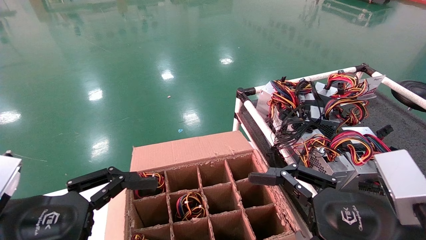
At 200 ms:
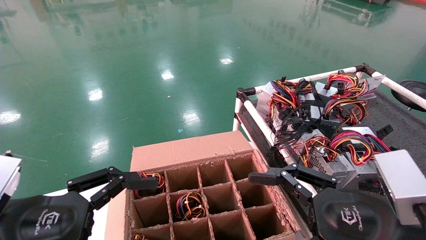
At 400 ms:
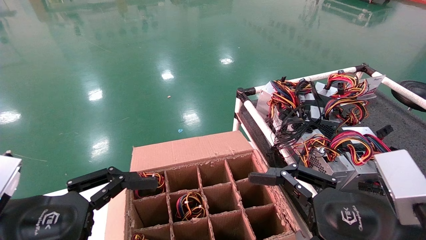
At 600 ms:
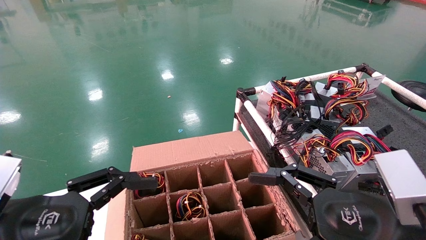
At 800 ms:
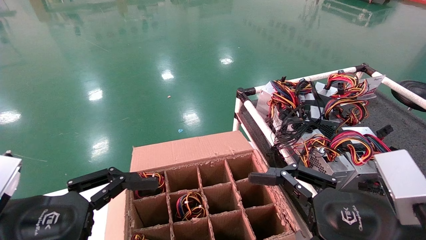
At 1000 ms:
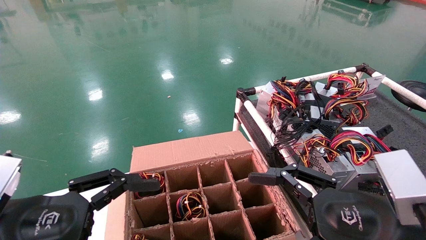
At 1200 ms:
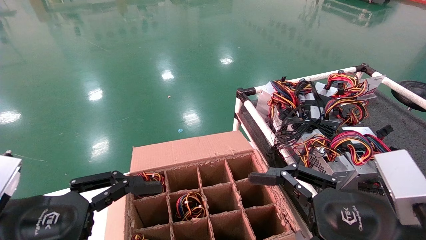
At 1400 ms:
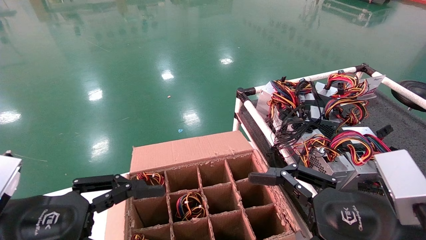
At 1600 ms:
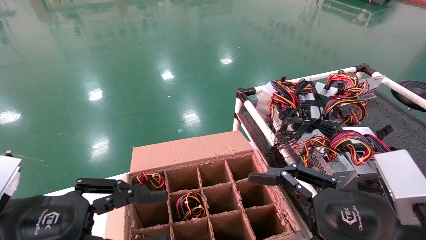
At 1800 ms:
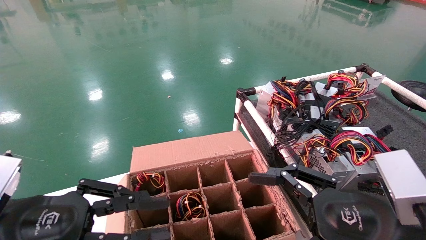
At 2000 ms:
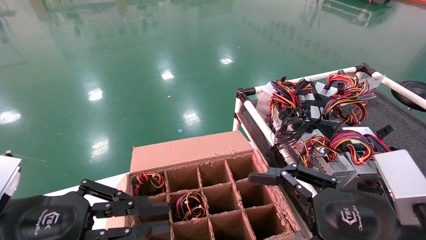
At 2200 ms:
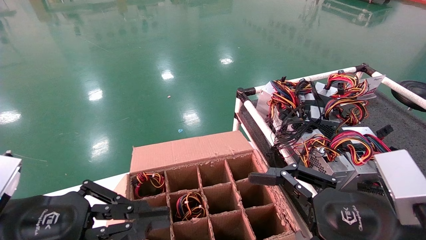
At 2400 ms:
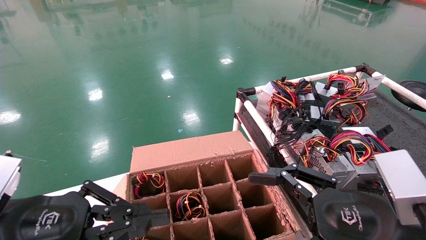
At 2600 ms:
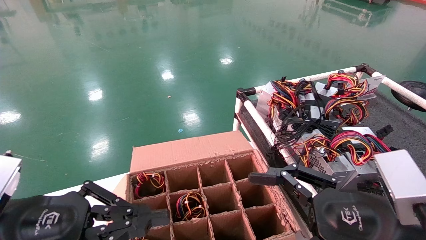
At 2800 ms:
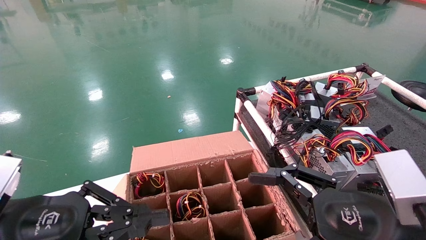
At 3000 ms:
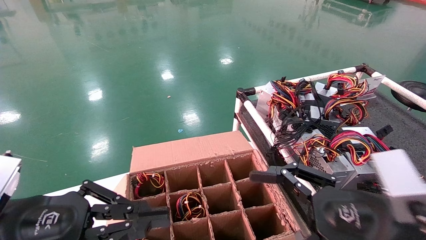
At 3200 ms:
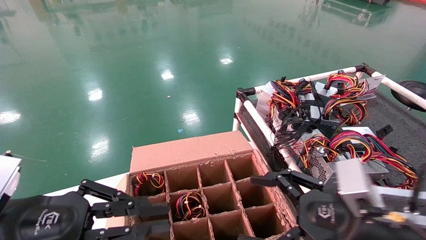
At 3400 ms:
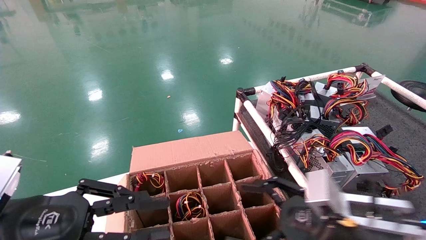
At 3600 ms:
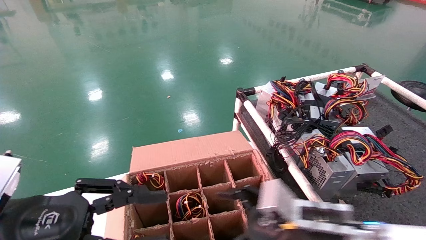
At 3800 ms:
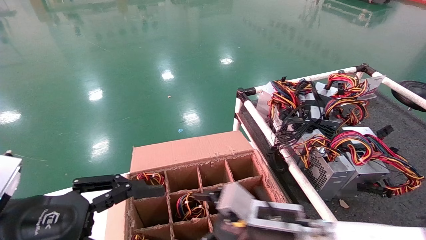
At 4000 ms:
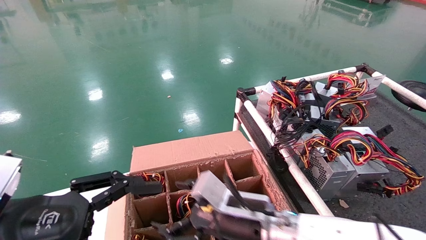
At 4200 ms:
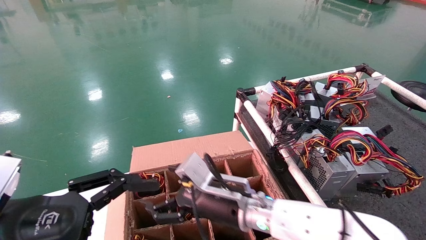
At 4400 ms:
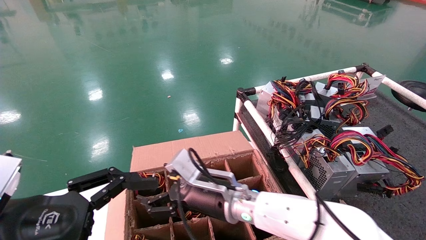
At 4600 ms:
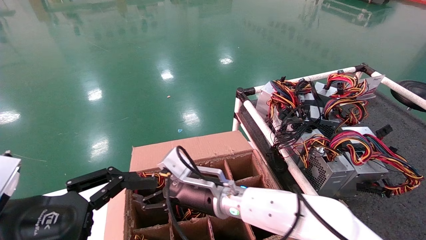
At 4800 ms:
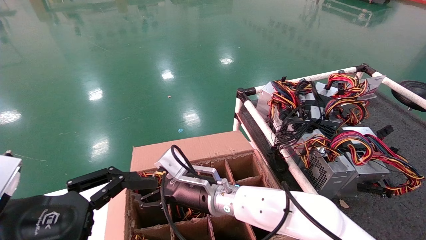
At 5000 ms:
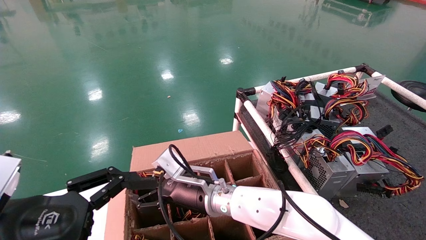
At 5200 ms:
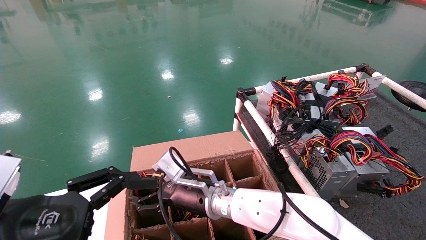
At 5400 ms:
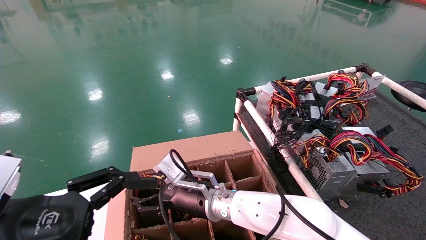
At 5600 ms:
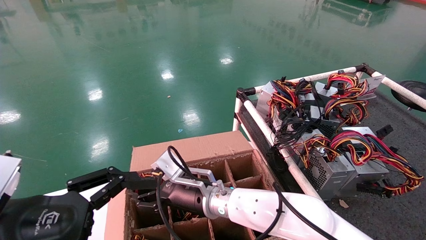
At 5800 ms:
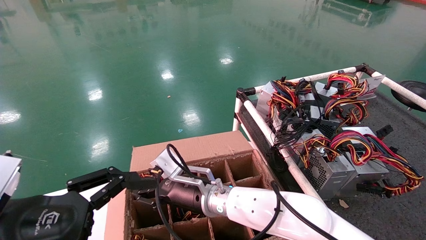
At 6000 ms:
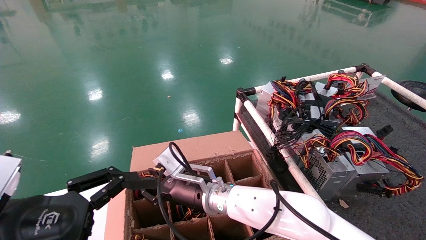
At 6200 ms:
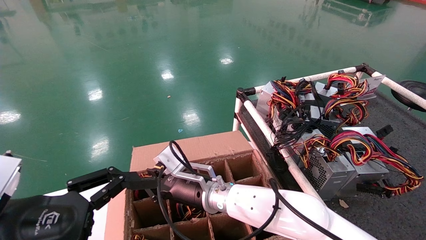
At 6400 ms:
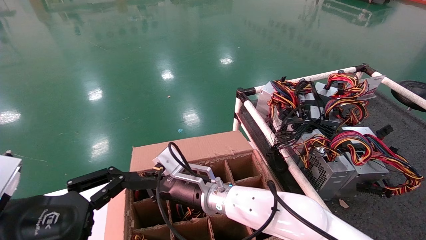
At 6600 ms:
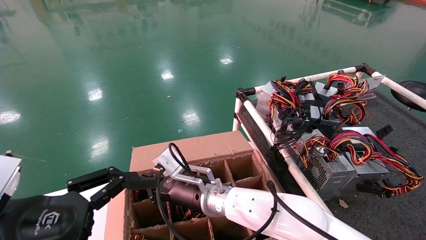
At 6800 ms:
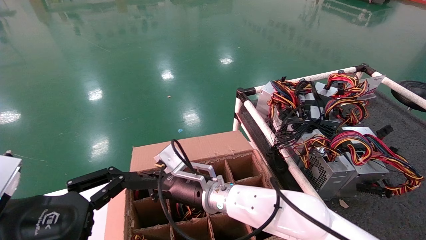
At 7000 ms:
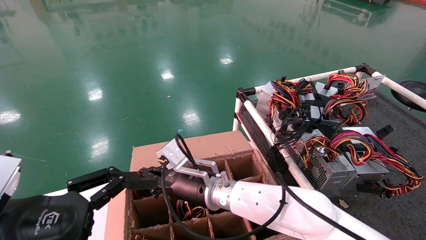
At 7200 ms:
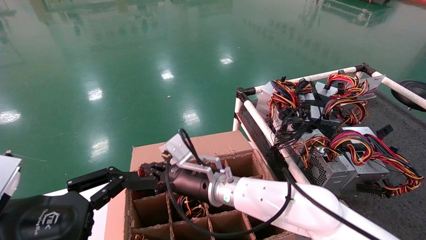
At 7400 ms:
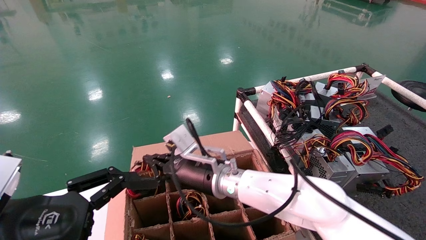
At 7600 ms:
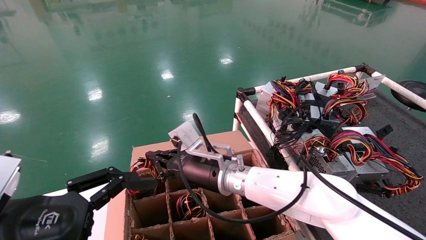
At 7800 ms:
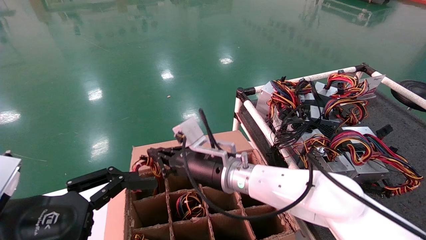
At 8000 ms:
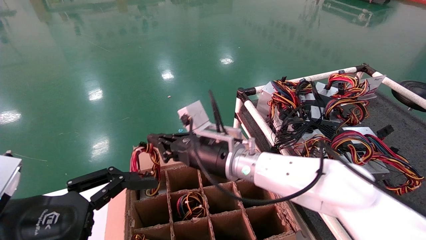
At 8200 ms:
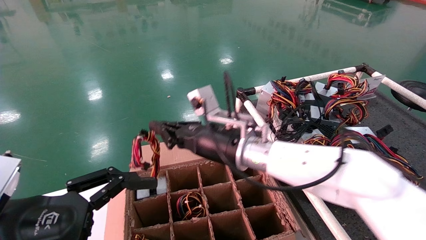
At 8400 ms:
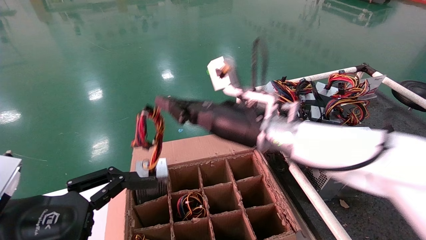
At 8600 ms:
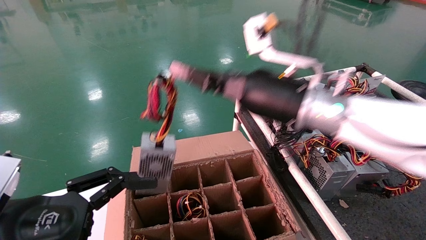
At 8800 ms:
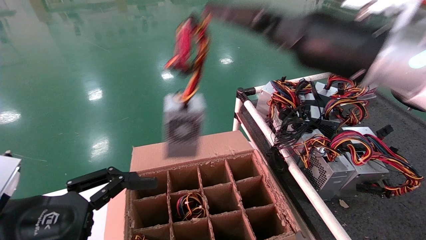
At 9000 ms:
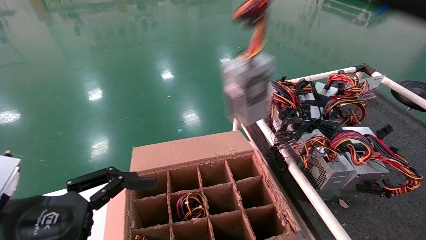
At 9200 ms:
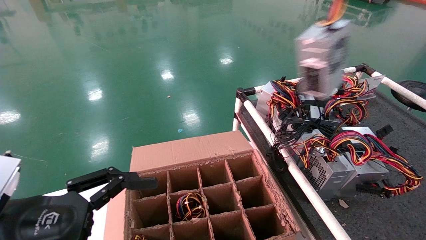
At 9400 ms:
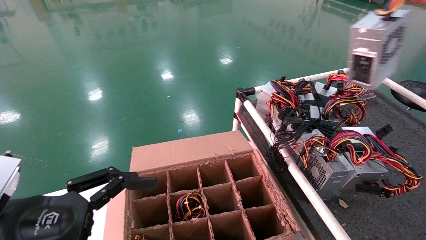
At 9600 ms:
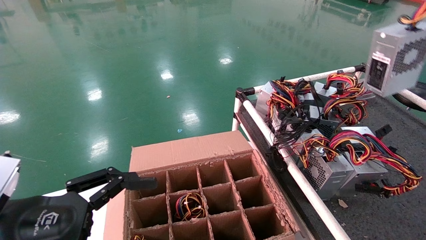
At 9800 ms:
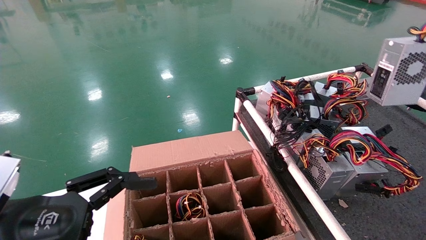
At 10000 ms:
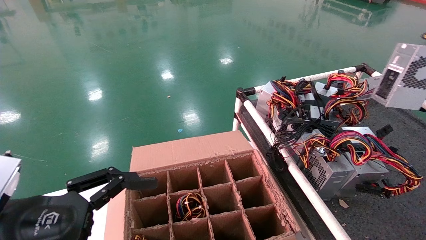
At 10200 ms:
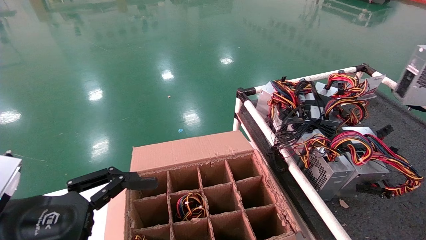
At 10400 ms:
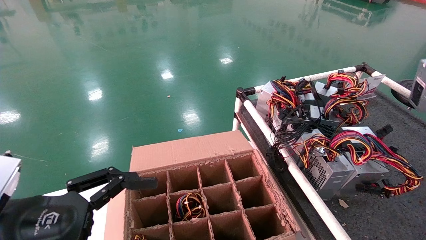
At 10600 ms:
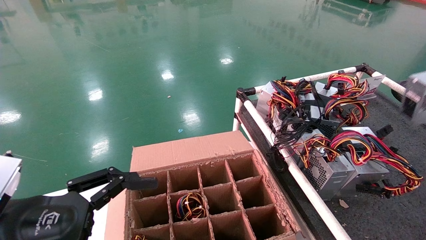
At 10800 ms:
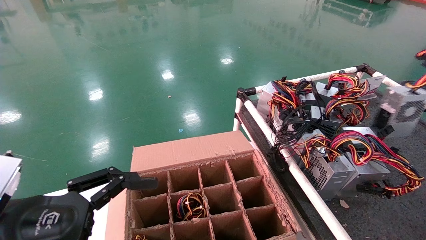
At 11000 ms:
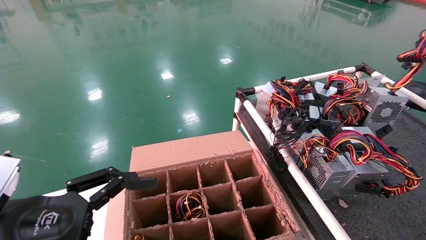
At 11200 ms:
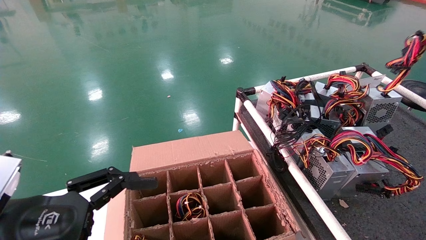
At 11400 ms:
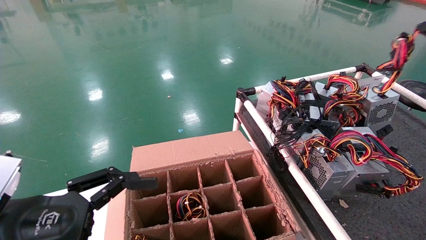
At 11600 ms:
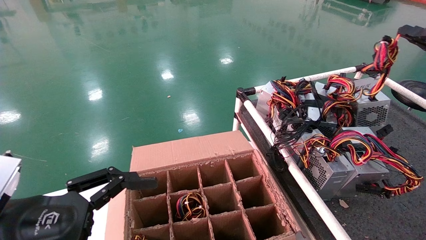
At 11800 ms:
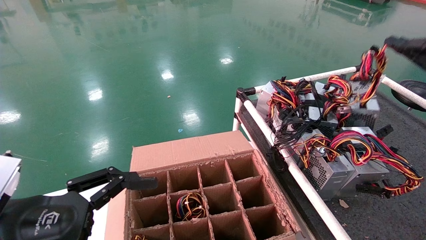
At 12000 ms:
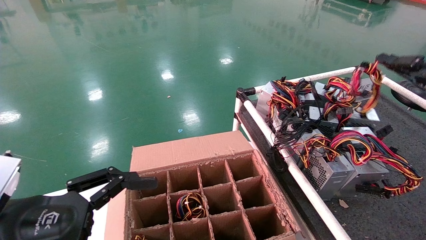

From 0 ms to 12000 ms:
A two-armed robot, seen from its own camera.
Step, from 3400 ms to 6800 ms: Grab and lift the power supply from the large box.
From 0 ms to 1600 ms: The left gripper closes its fingers.
From 1600 ms to 3000 ms: The left gripper closes.
From 3000 ms to 4400 ms: The right gripper is displaced to the left and forward by roughly 25 cm. Meanwhile the left gripper opens.
From 4400 ms to 6000 ms: The right gripper shifts by approximately 5 cm, and closes.
From 6000 ms to 7600 ms: The right gripper heads upward, covering approximately 5 cm, and closes its fingers.
From 7600 ms to 9000 ms: The right gripper moves upward, to the right and backward, approximately 40 cm.
From 9000 ms to 10400 ms: The right gripper travels to the right by some 30 cm.
From 10400 ms to 12000 ms: The right gripper is displaced downward, to the left and forward by roughly 15 cm.

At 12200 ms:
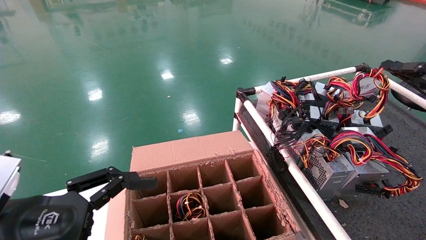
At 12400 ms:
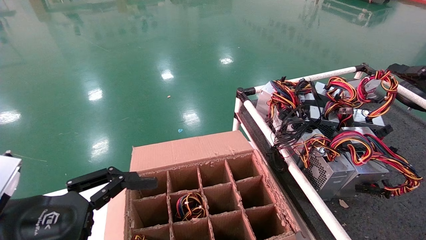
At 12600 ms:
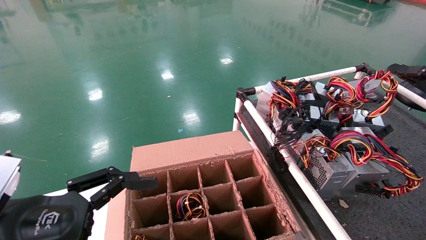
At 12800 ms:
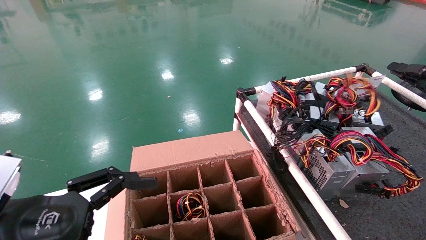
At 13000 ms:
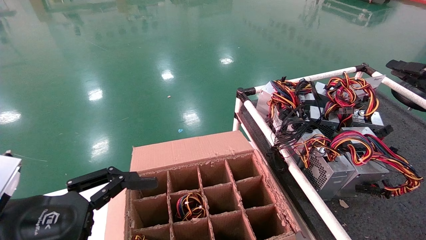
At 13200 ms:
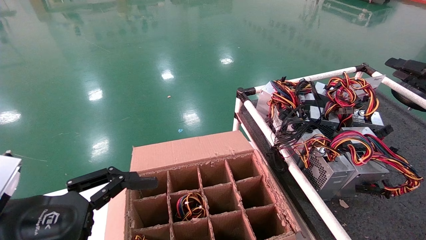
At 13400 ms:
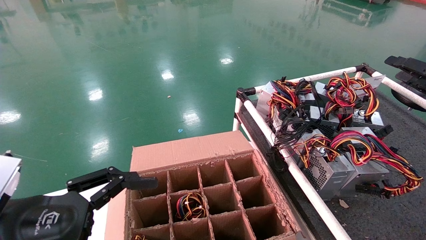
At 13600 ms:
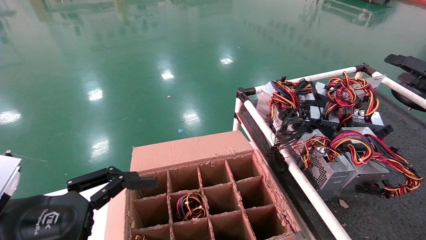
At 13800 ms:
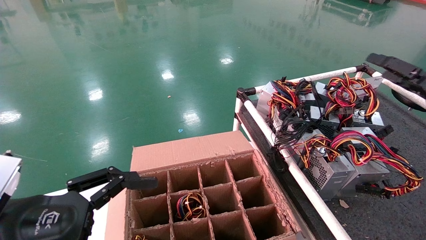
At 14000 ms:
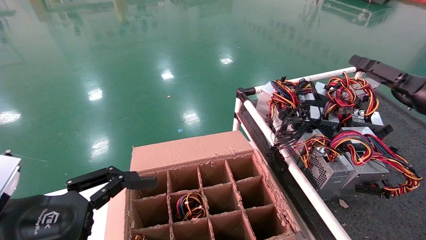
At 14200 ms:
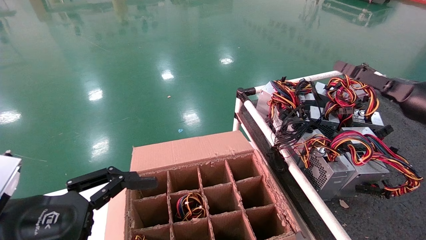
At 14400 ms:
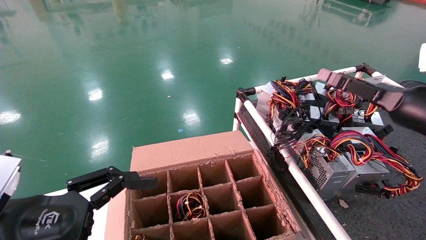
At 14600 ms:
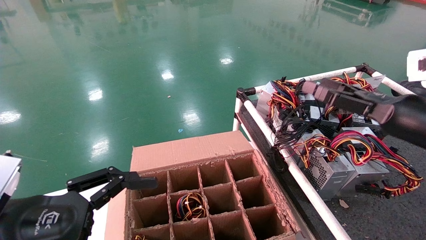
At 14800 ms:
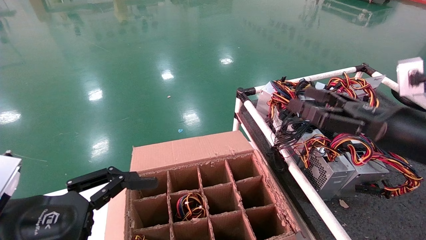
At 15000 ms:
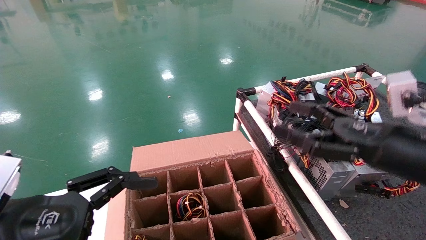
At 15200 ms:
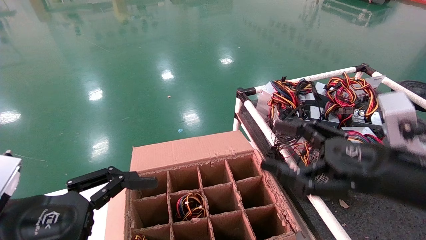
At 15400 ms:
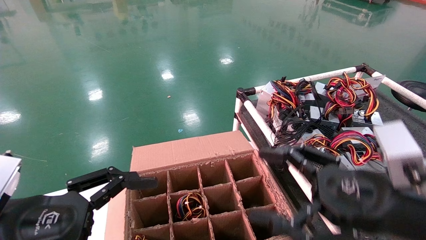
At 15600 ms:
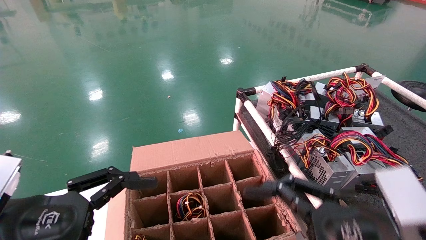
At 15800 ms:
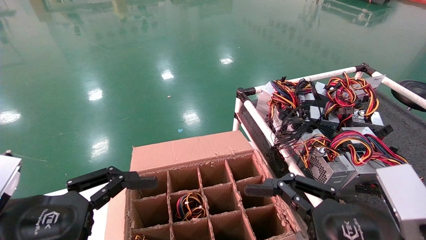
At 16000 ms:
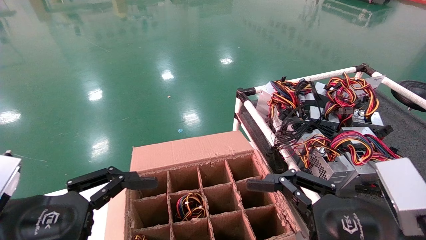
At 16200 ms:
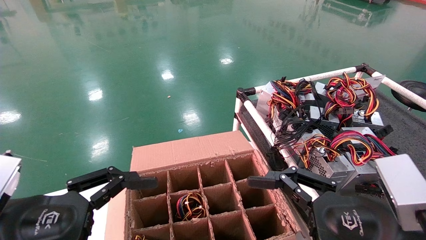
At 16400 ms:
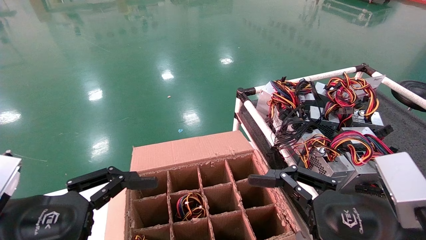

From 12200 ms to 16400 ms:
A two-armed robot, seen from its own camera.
From 12200 ms to 13600 ms: The right gripper opens.
From 13600 ms to 15000 ms: The right gripper goes approximately 20 cm to the left and backward, and opens its fingers.
From 15000 ms to 16400 ms: The right gripper goes about 10 cm backward and to the left.
